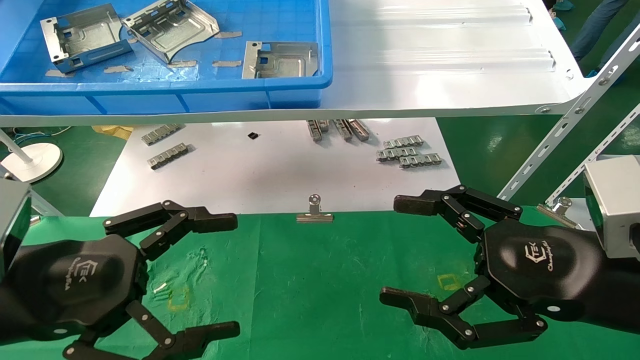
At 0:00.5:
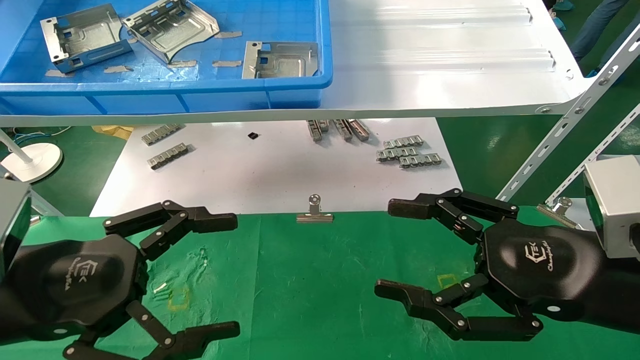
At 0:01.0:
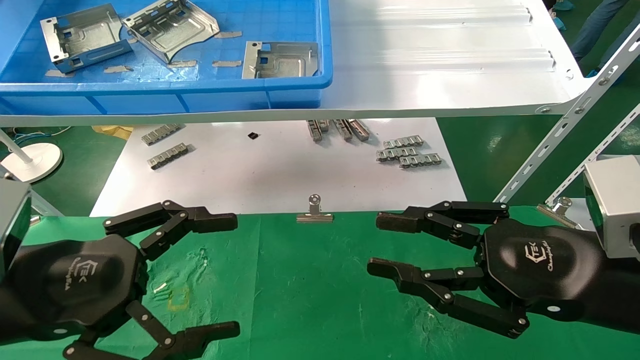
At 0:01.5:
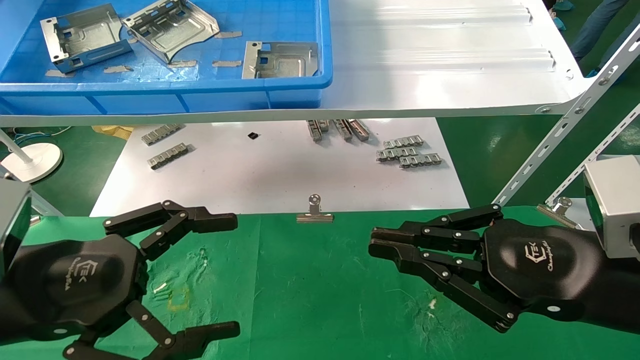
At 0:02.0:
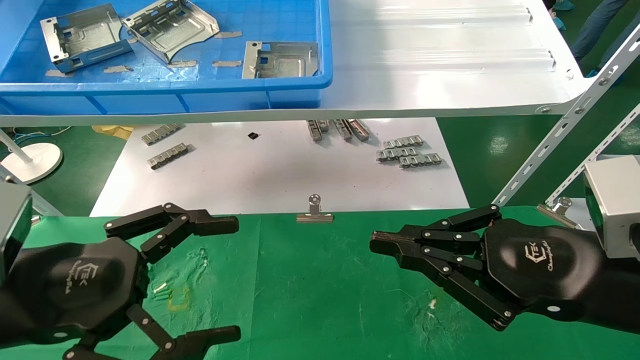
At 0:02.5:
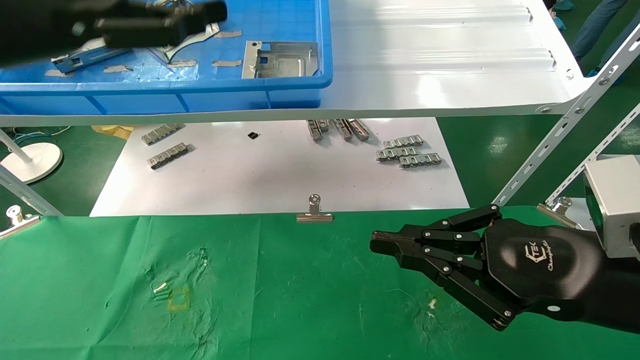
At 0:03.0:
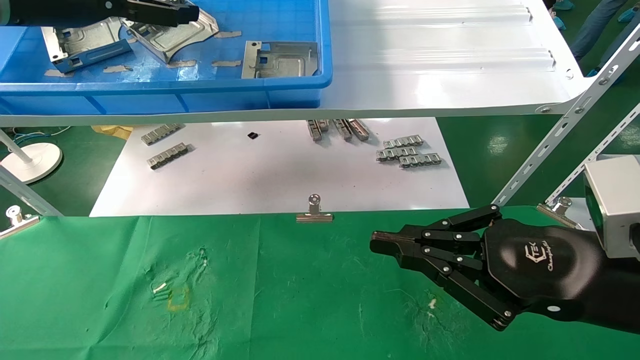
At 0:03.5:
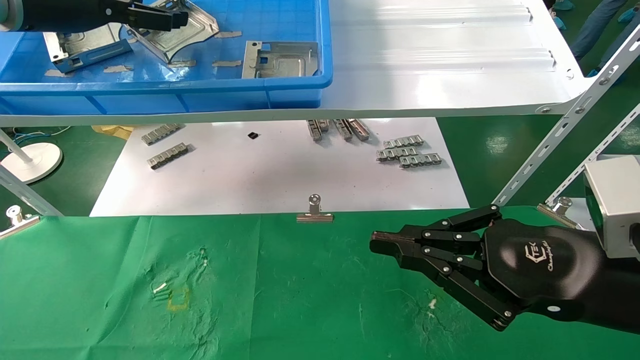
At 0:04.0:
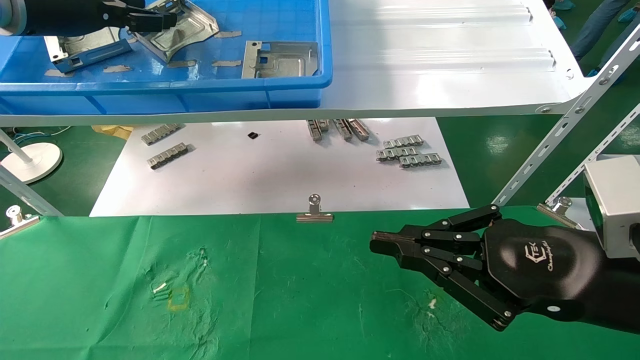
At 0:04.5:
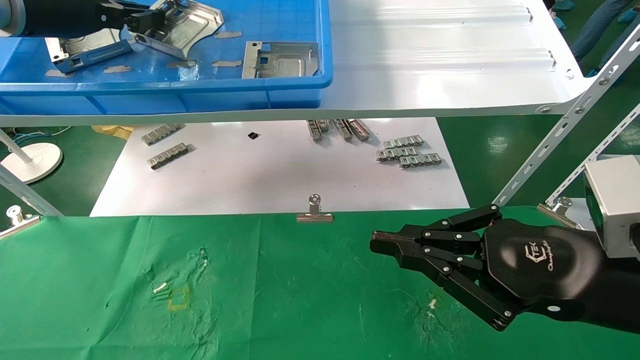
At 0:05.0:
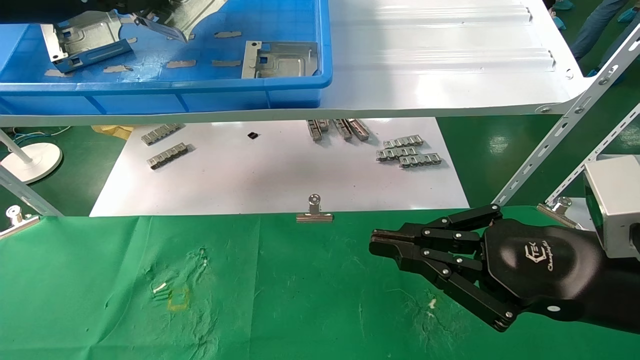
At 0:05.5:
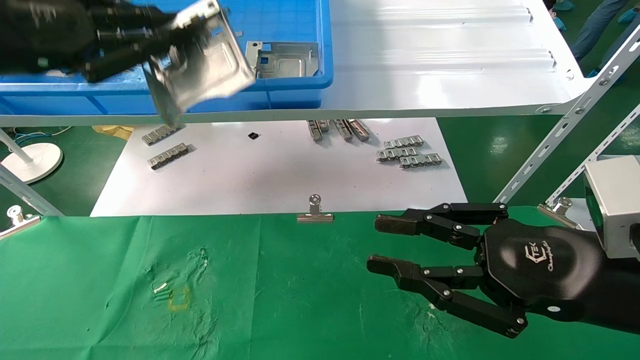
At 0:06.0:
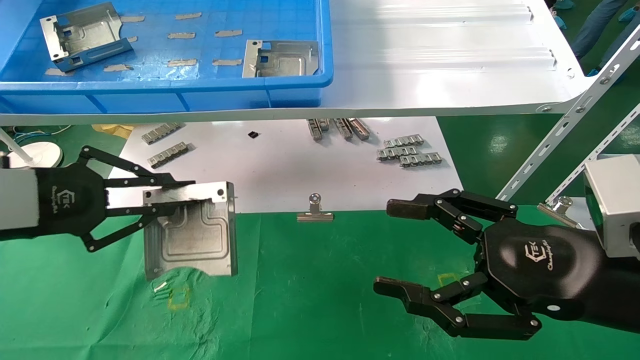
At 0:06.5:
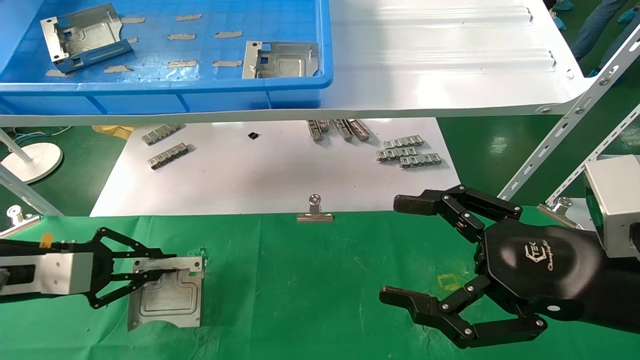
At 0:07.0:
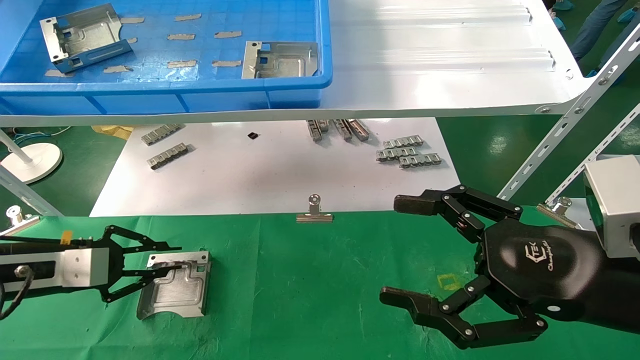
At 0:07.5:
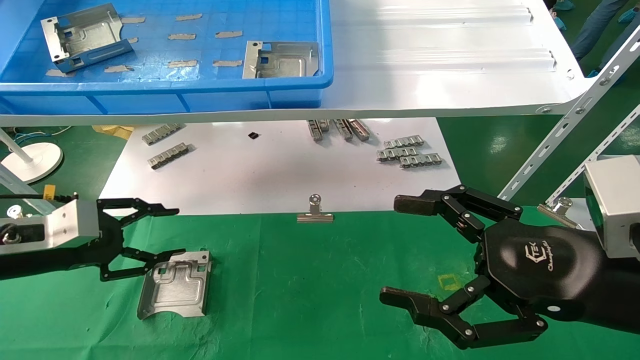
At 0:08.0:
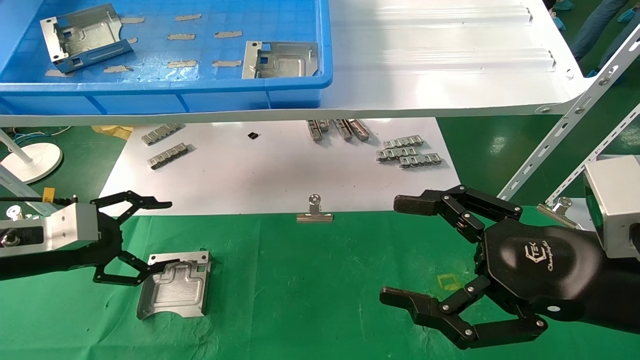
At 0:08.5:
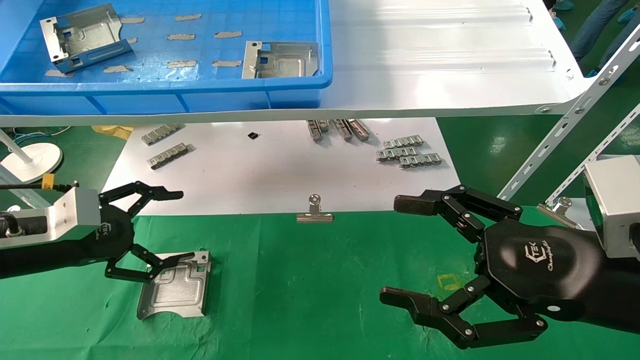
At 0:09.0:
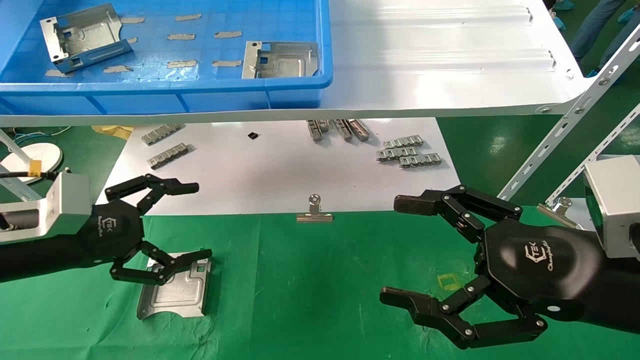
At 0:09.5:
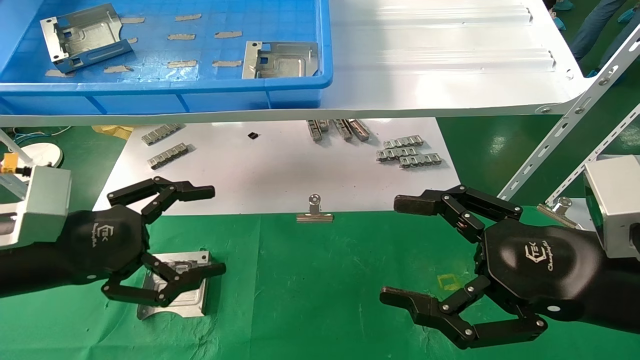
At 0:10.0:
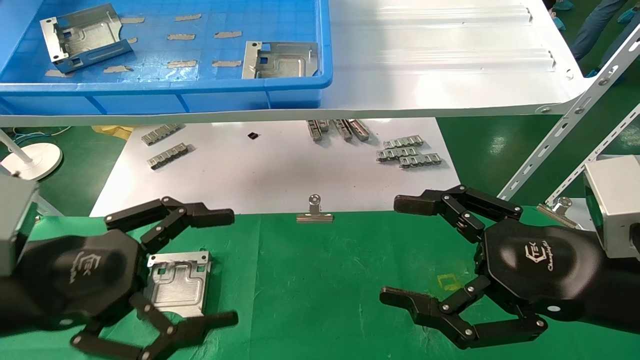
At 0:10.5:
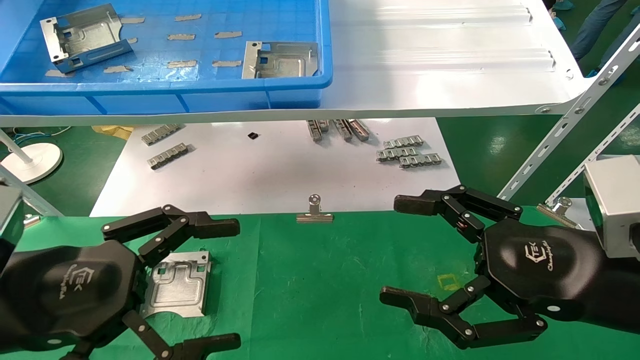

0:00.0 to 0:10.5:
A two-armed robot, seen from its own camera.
Task of the whole recording: use the mechanical arm to pick up the parts and place them on the table.
Step, 0:02.5 to 0:04.5: Pick up the hard drive bracket from the feeding area.
Step, 0:05.0 to 0:07.0: Place the hard drive bracket into the box.
0:00.0 to 0:02.0: The right gripper closes.
0:02.0 to 0:04.0: The left gripper shifts some 30 cm upward and forward, and closes its fingers.
0:04.0 to 0:06.5: The left gripper moves downward, about 30 cm, and closes. Meanwhile the right gripper opens its fingers.
0:06.5 to 0:08.5: The left gripper opens.
0:08.5 to 0:10.5: The left gripper moves backward and to the right, about 15 cm.

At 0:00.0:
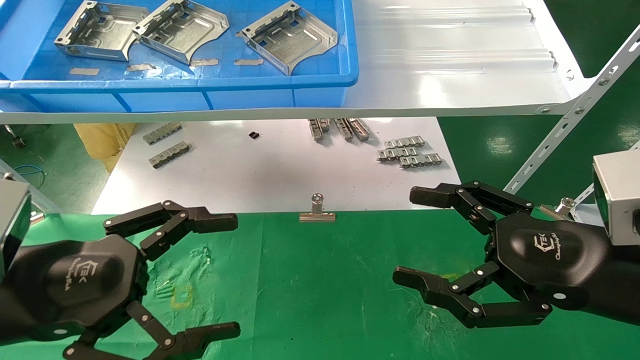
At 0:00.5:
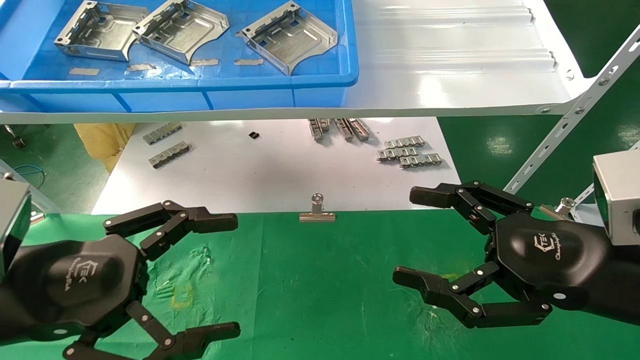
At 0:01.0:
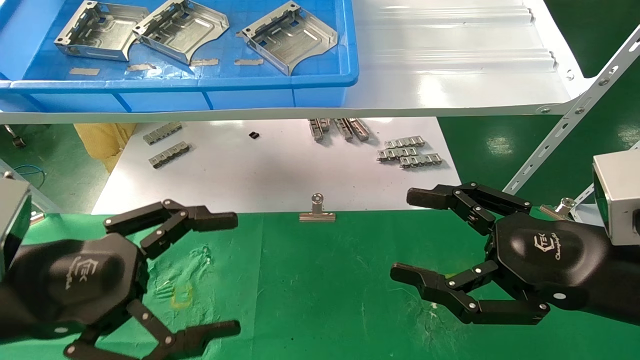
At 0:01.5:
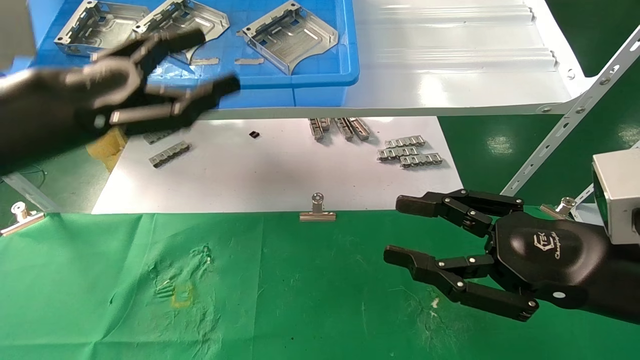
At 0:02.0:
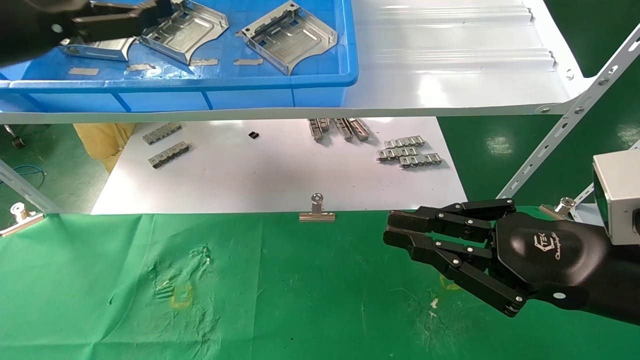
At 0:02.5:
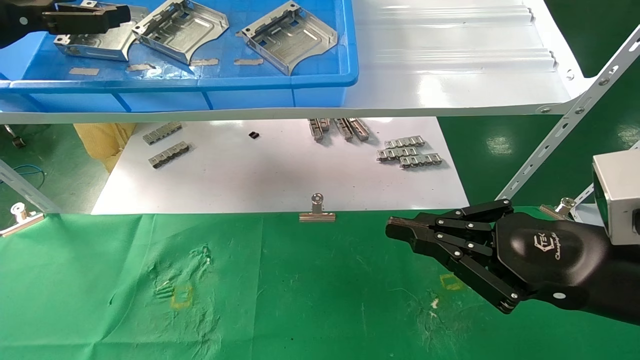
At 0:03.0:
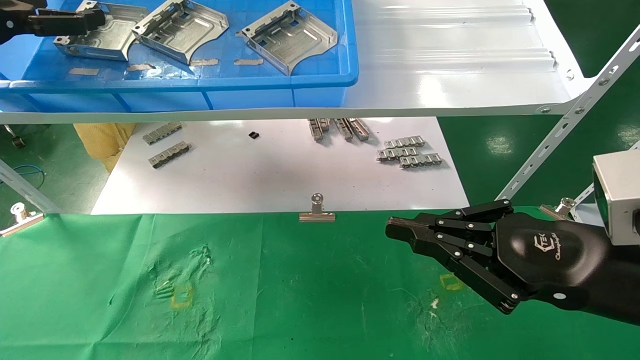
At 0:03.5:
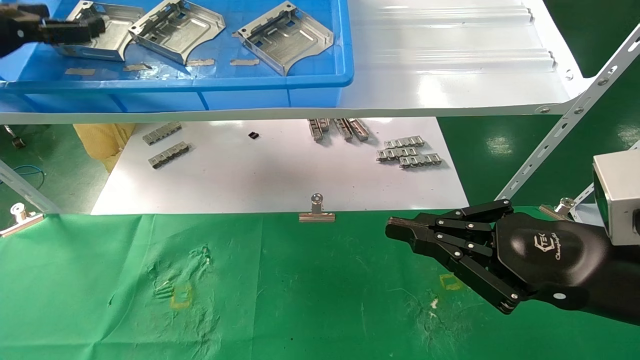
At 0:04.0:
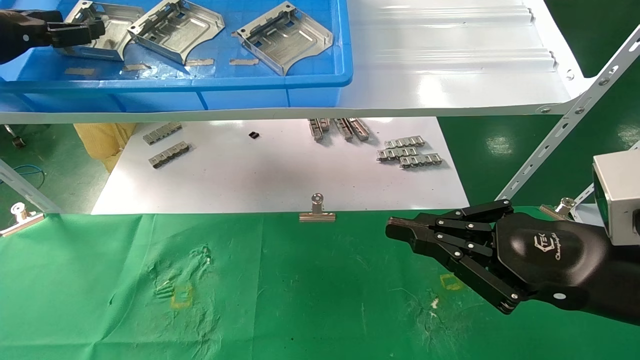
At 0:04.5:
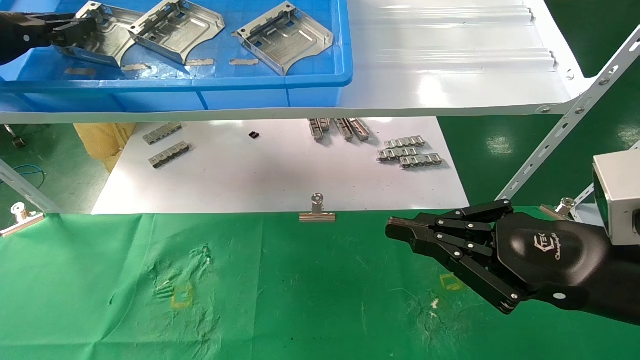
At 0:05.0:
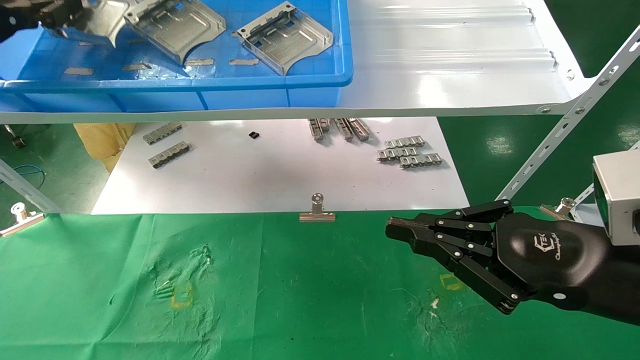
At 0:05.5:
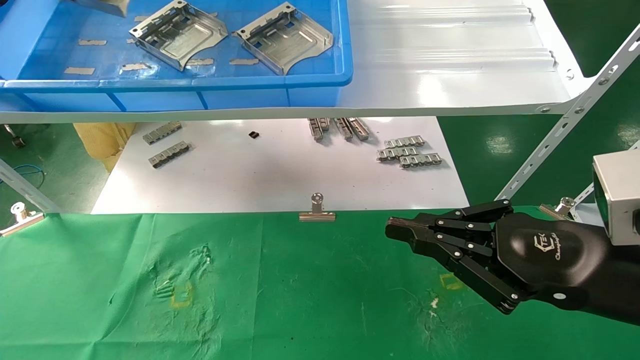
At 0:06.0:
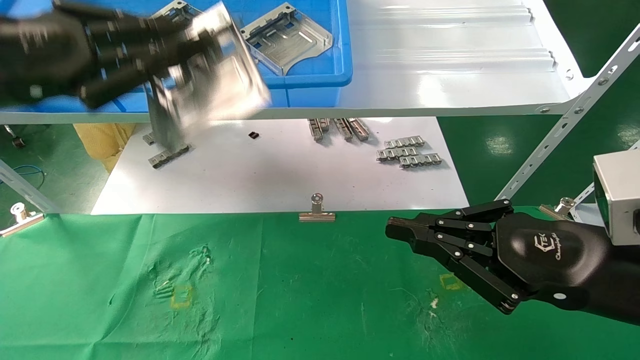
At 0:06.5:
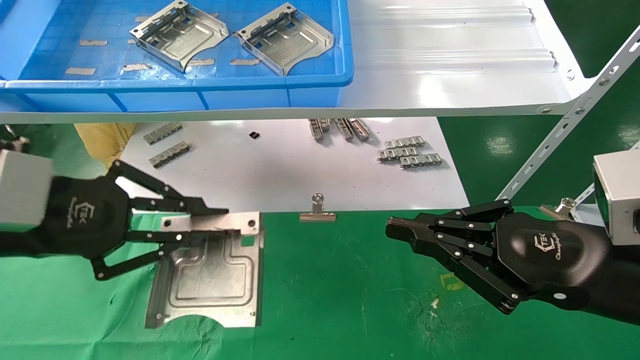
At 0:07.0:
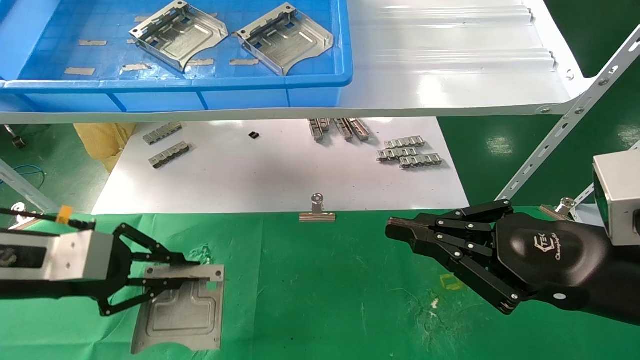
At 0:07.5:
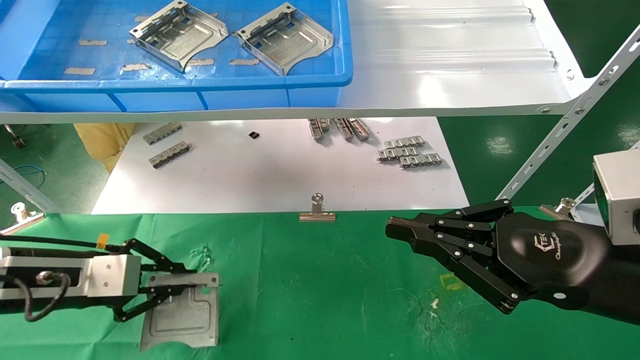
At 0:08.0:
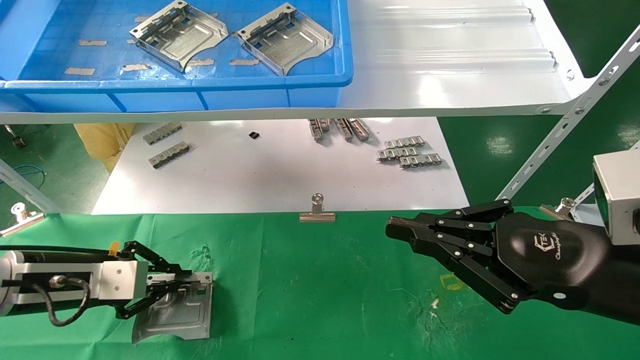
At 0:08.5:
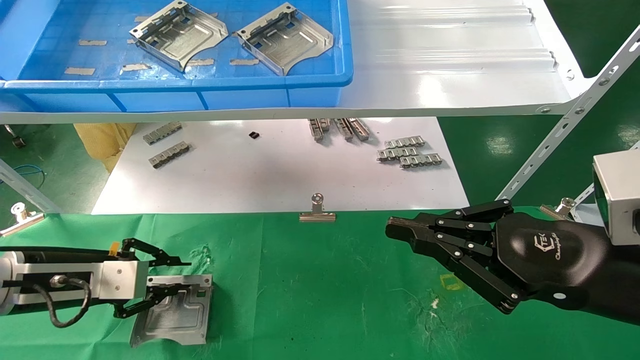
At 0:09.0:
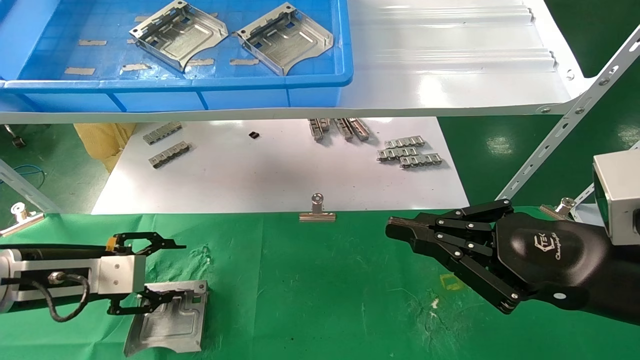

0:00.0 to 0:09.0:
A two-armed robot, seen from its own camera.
Task of the whole recording: use the mechanical arm to pick up the parts and place them on the table.
Step, 0:01.5 to 0:04.5: Pick up the hard drive bracket from the feeding area.
Step, 0:05.0 to 0:08.0: Place the hard drive bracket into the box.
0:00.0 to 0:02.0: The right gripper closes. Meanwhile the left gripper moves upward and forward, about 20 cm.
0:02.0 to 0:04.5: The left gripper travels to the left and forward by roughly 10 cm, and closes.
0:04.5 to 0:07.0: The left gripper is displaced downward, backward and to the right by approximately 25 cm.
0:07.0 to 0:09.0: The left gripper is displaced downward by approximately 5 cm, and opens up.
